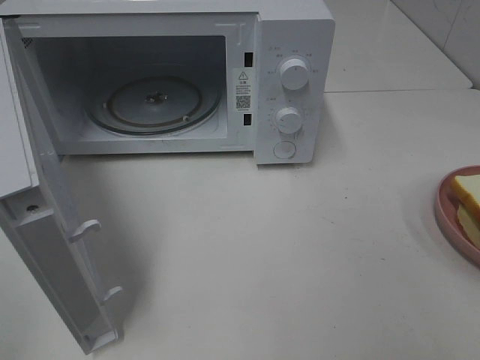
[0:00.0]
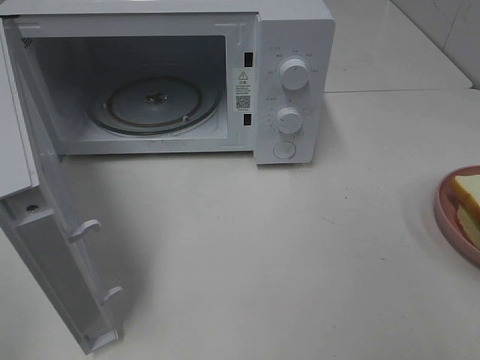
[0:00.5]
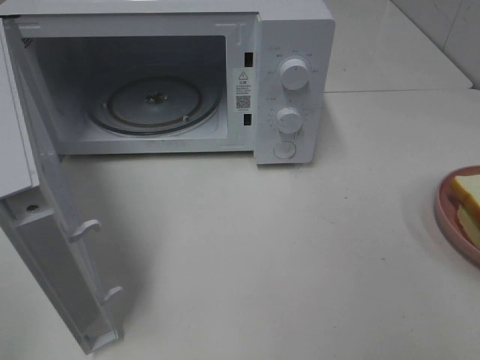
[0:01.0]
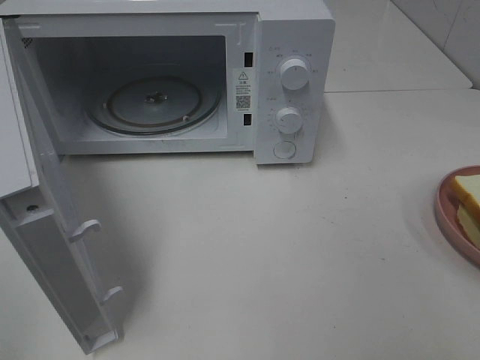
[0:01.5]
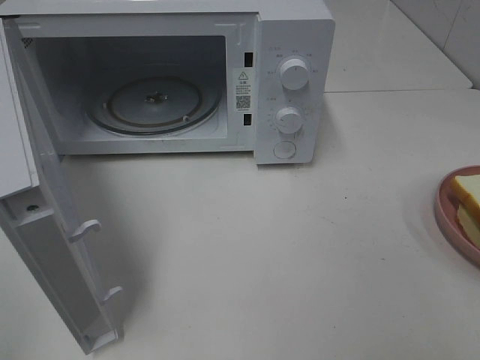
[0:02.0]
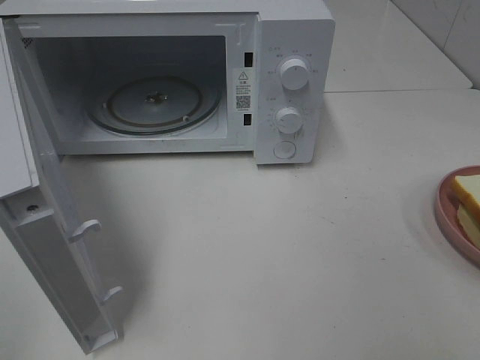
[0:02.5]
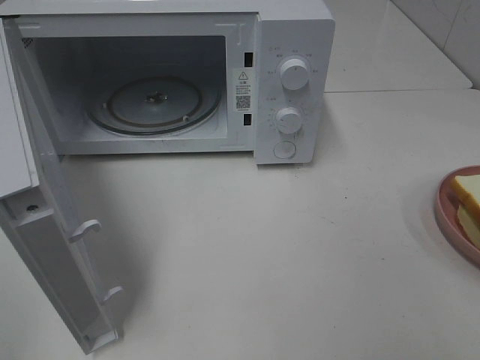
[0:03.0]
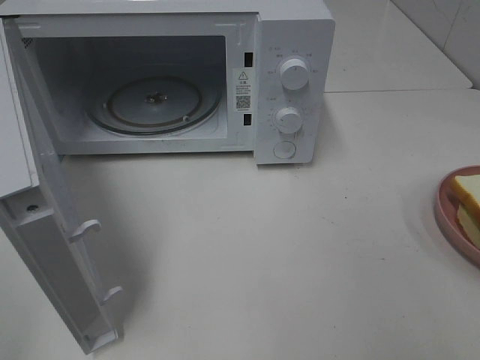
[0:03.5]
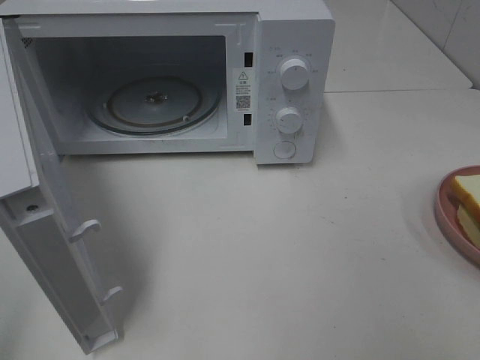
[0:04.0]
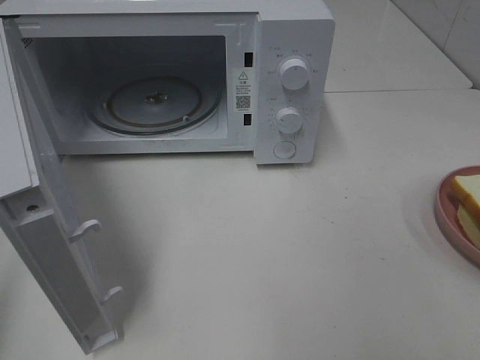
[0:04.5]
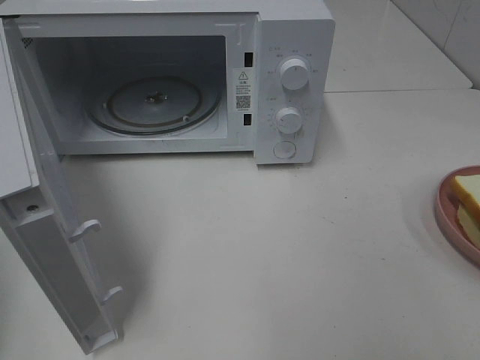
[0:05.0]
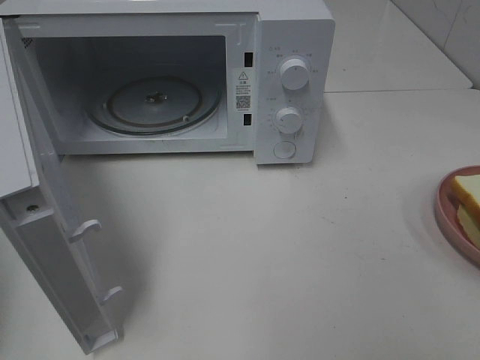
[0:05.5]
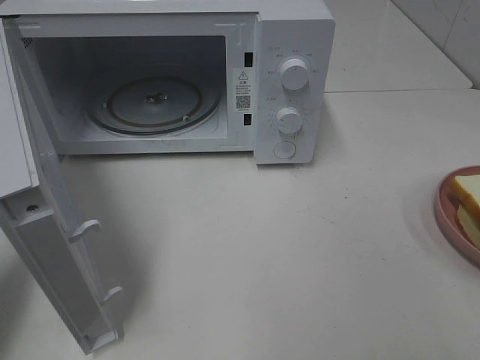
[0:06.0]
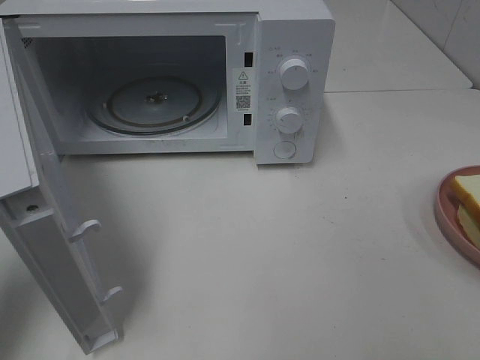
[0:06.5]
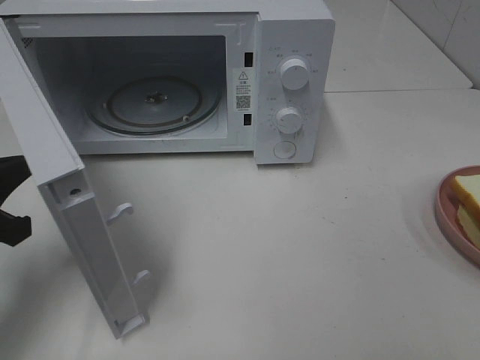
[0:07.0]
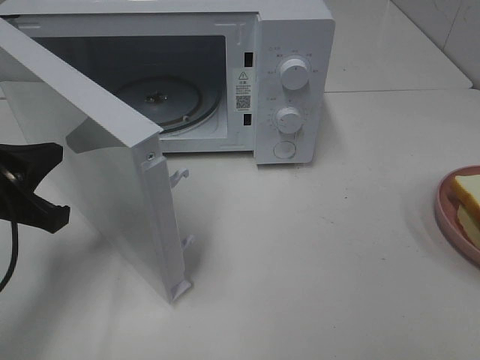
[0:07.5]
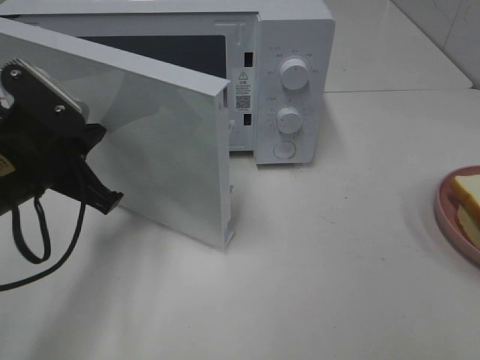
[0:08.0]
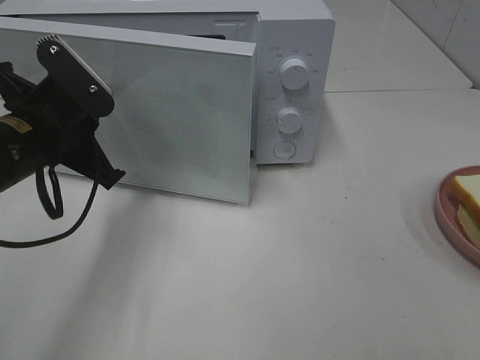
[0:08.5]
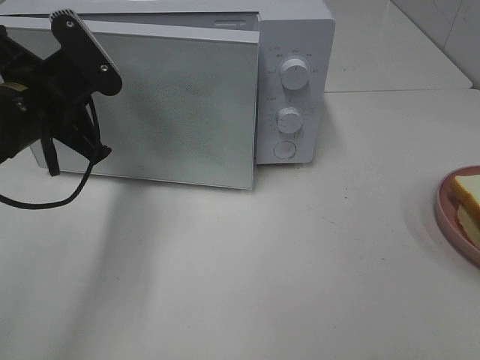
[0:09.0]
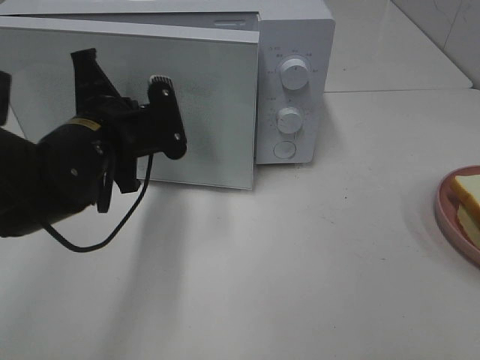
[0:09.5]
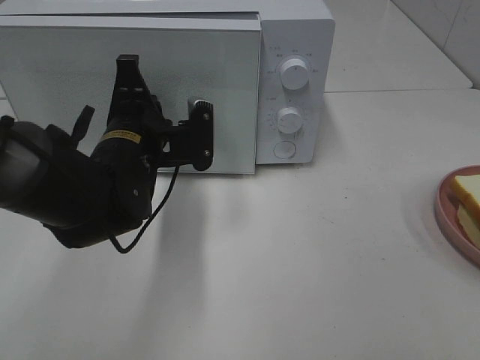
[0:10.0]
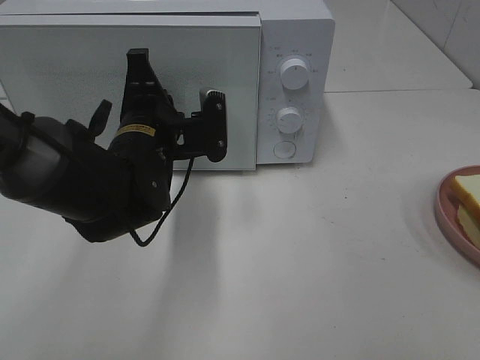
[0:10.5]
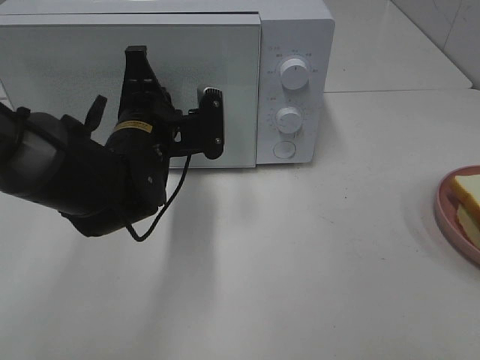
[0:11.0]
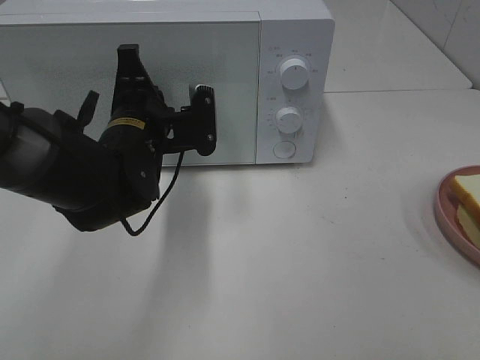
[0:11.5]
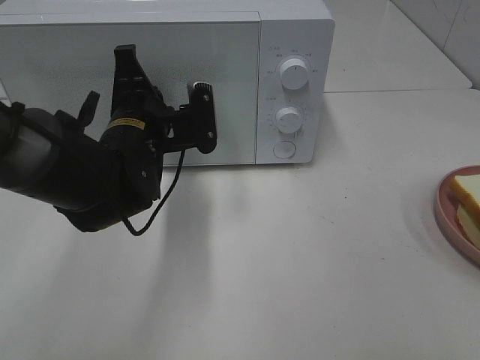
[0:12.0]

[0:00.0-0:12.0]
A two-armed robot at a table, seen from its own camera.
Task of the whole recording: Heat Sandwich.
0:04.0 to 0:06.0: The left gripper travels forward and downward by some 15 cm, and closes up.
0:06.0 to 0:08.0: The left gripper goes about 15 cm to the right, forward and downward.
0:08.0 to 0:10.0: The left gripper goes approximately 10 cm to the right and forward.
0:10.0 to 0:12.0: There are only small adjustments of the grippers.

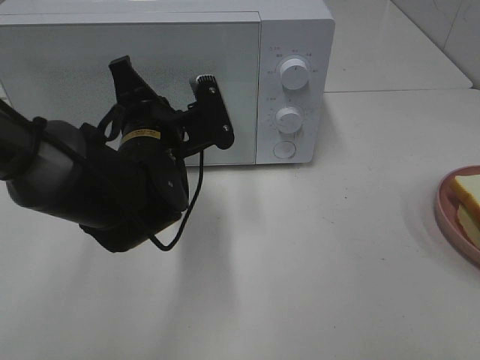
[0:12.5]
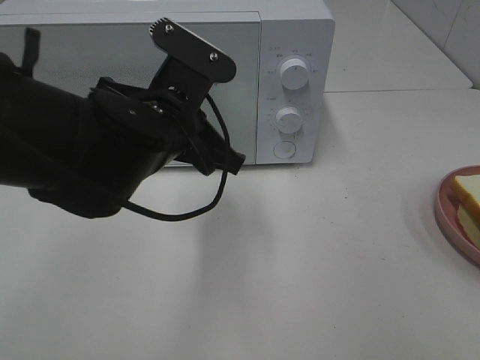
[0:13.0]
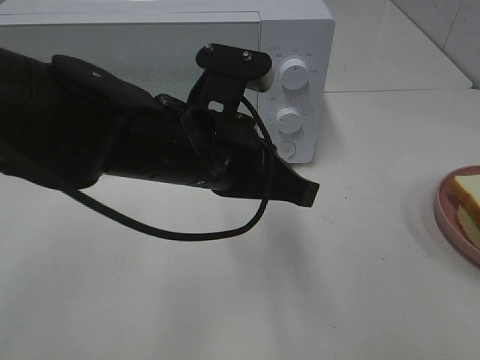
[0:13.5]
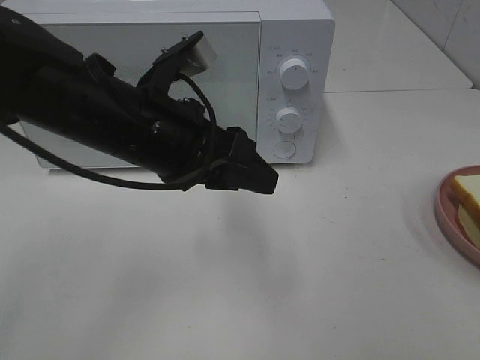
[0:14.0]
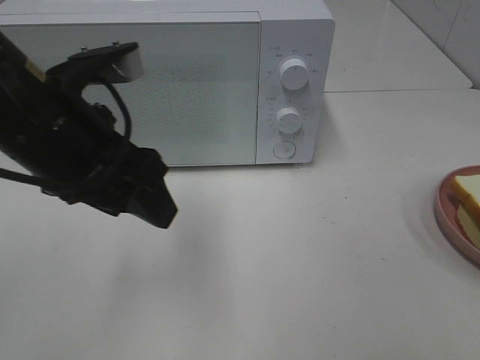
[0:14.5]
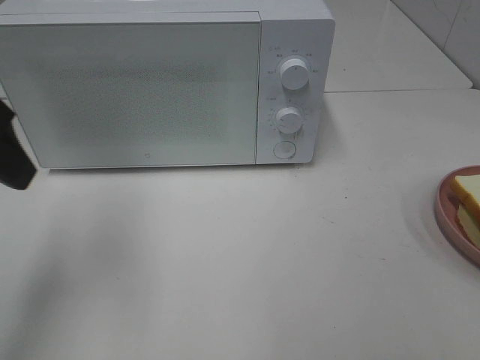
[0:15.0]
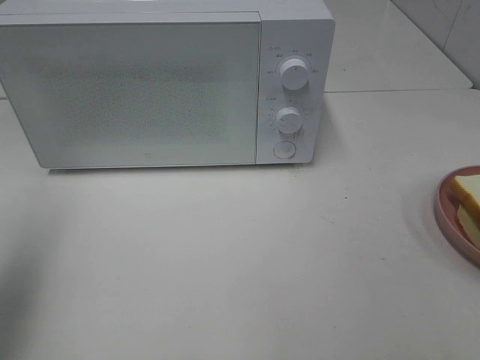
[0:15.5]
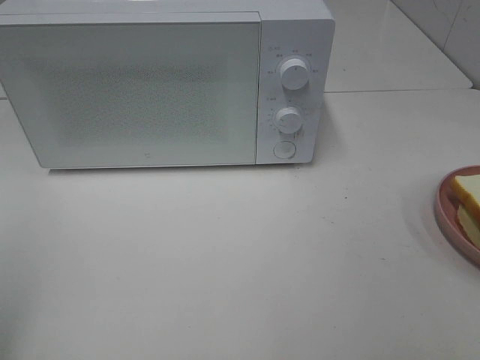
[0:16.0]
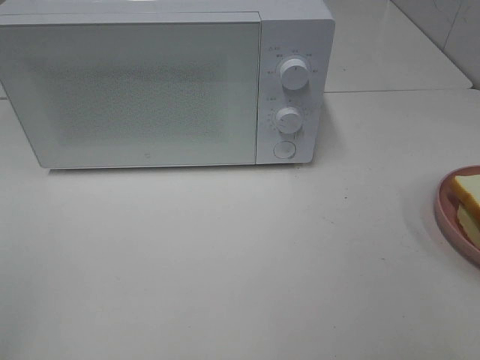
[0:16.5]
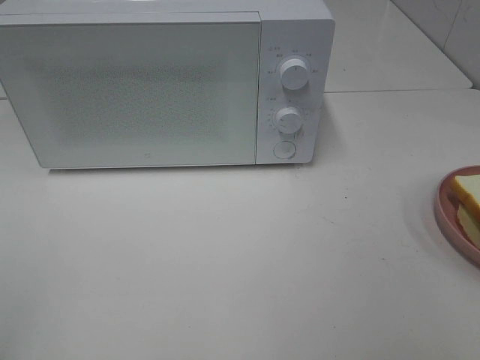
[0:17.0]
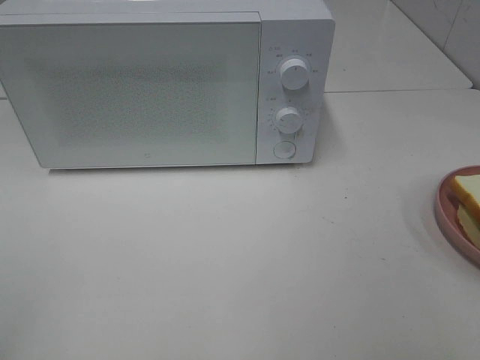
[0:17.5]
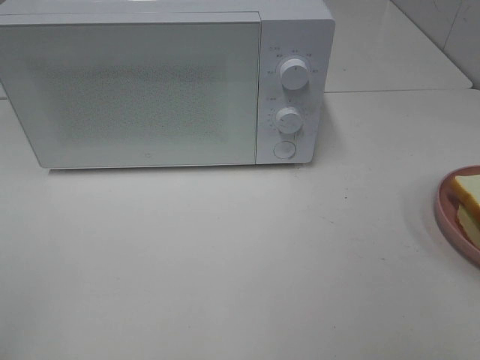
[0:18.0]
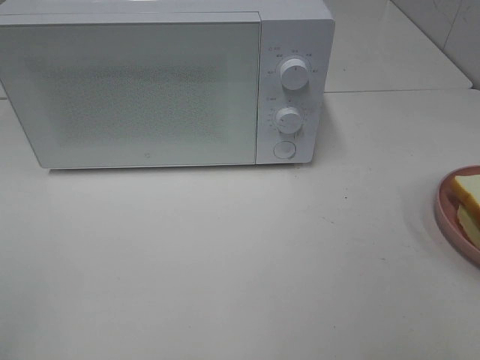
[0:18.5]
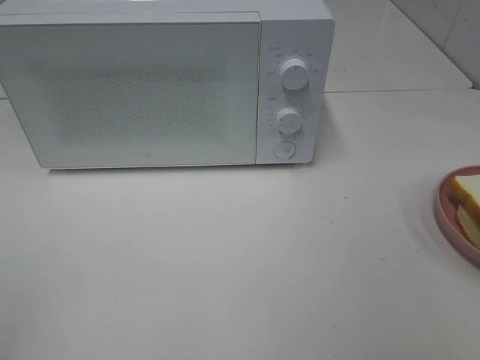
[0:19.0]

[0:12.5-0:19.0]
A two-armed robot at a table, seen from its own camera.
Task of the whole recording: Heat Sandwich.
0:12.5 to 0:14.5: The left gripper goes approximately 15 cm upward, backward and to the left, and opens its fingers.
0:14.5 to 0:17.0: The left gripper moves backward and to the left, roughly 30 cm.
0:17.0 to 0:19.0: Both grippers stay put.

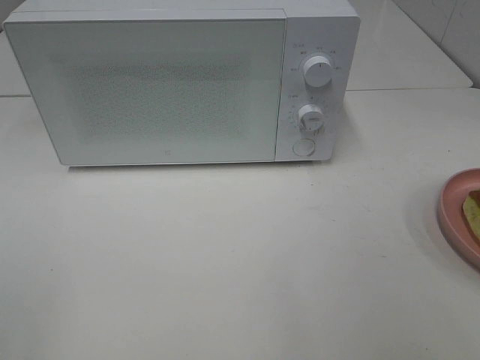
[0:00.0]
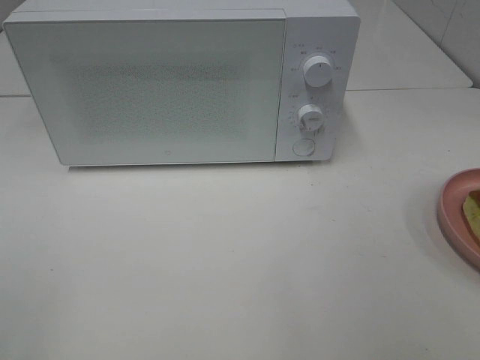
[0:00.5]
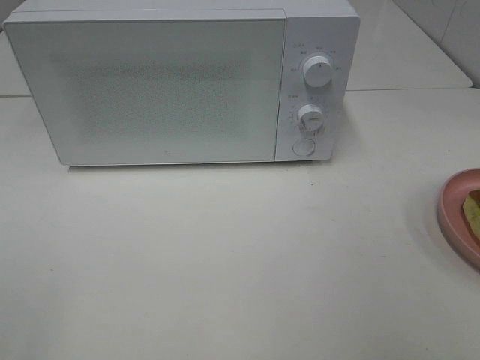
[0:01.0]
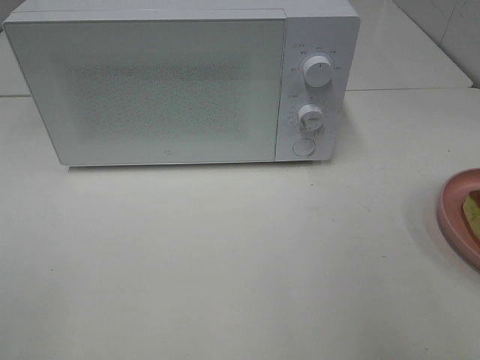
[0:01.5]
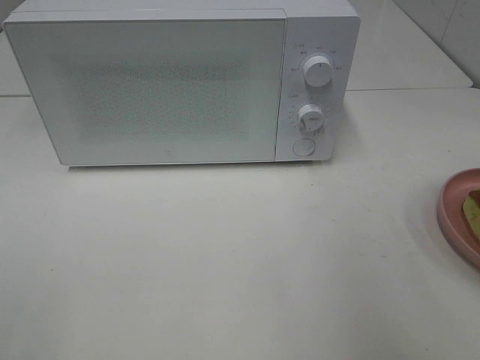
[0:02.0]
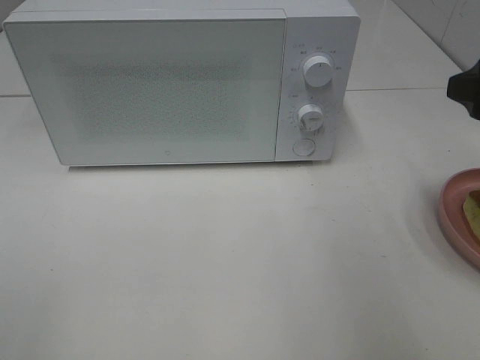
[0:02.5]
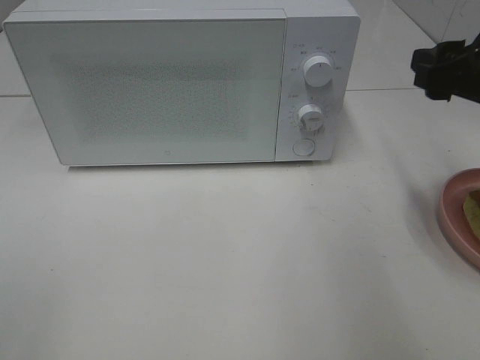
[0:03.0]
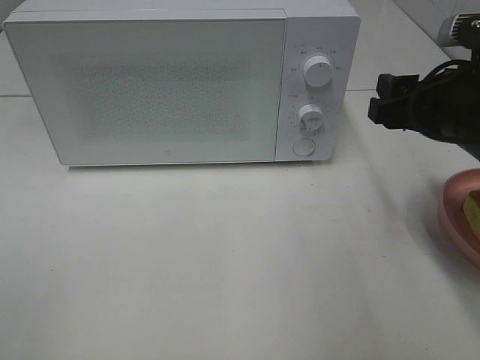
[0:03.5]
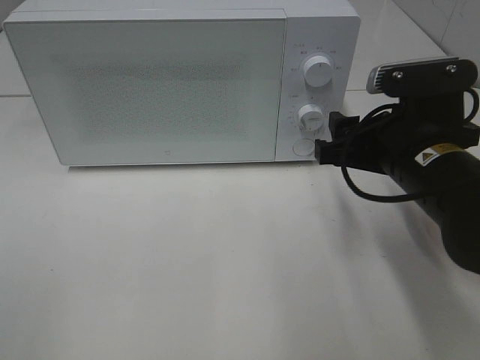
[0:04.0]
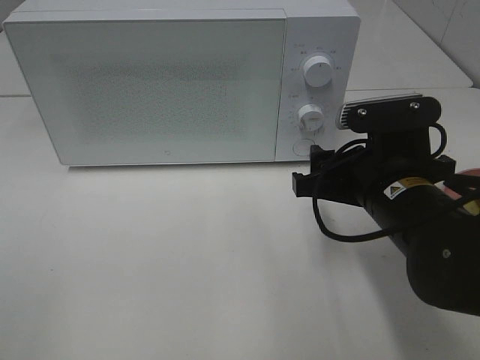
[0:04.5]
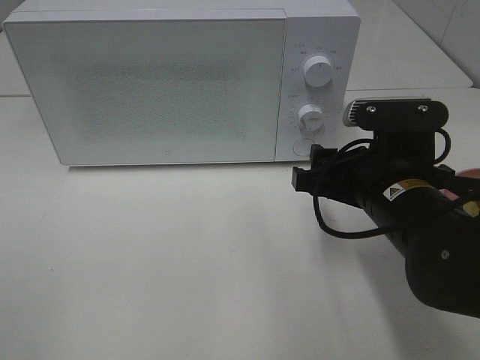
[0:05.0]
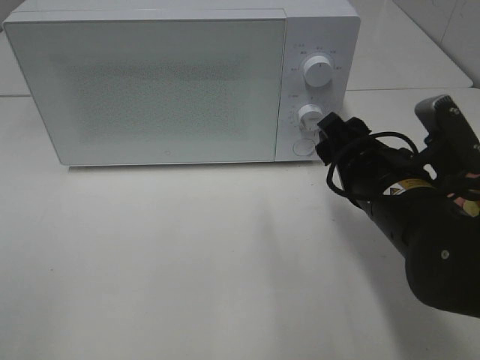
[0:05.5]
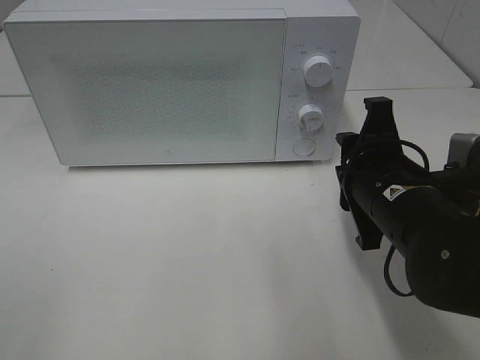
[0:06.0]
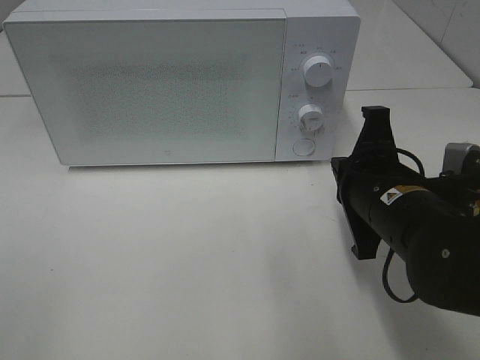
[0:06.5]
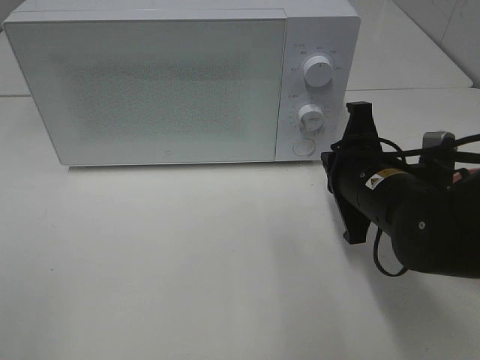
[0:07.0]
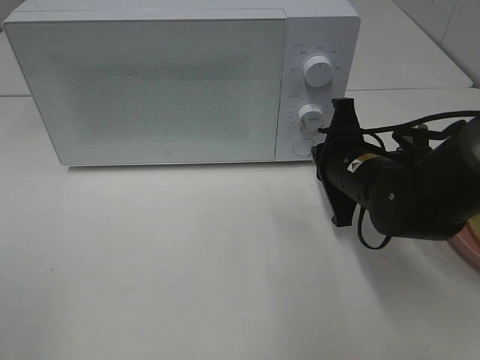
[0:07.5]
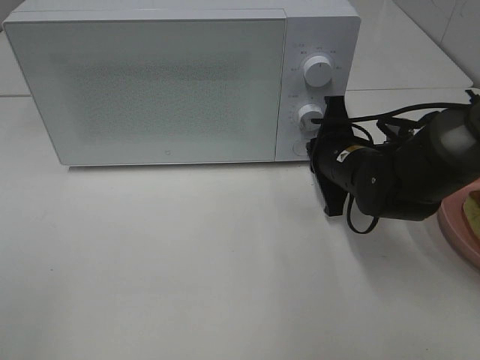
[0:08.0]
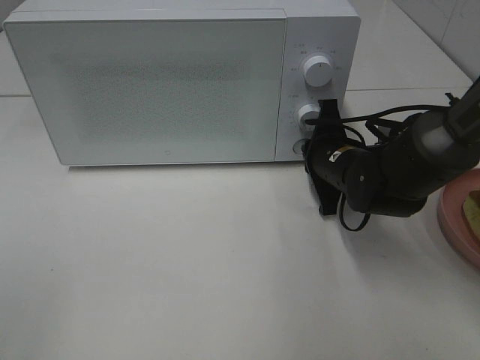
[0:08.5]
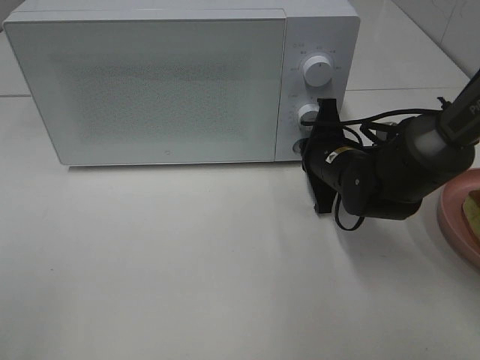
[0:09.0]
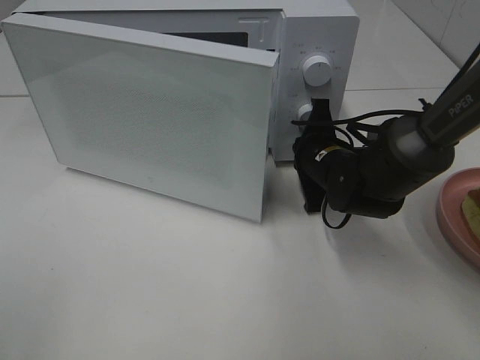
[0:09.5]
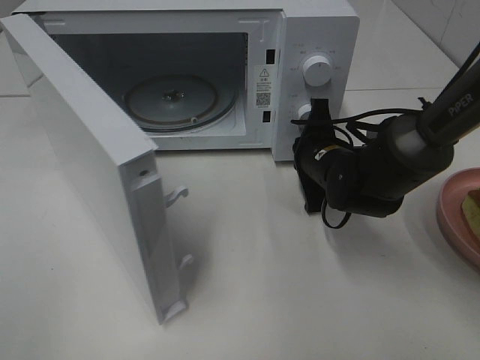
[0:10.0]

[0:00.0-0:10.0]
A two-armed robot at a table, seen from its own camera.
Task of the whole recording: Heat Sandwich.
0:02.0 to 0:04.0: The right gripper shifts about 15 cm downward, to the left and forward.
0:04.0 to 0:06.0: The right gripper closes its fingers.
0:06.0 to 0:08.0: The right gripper is displaced forward and downward by roughly 15 cm, and closes its fingers.
